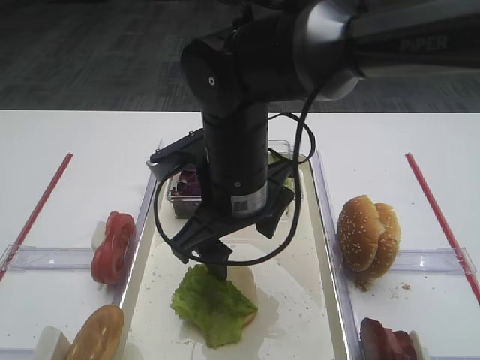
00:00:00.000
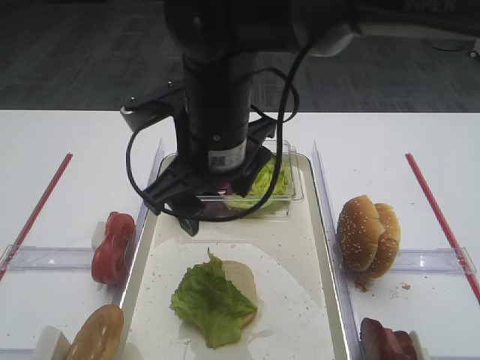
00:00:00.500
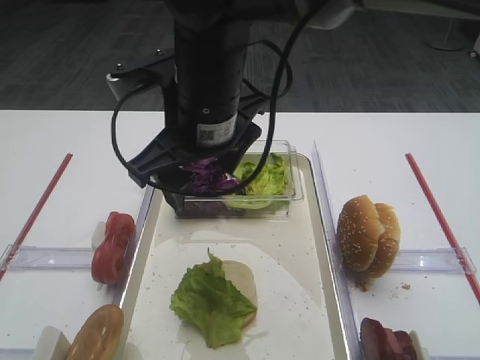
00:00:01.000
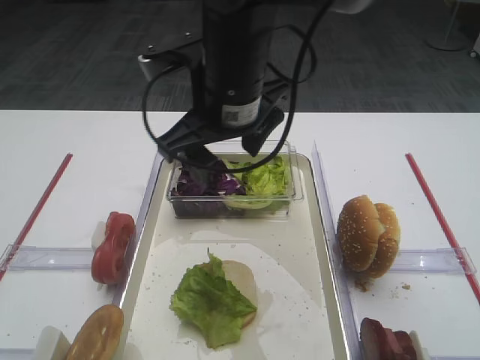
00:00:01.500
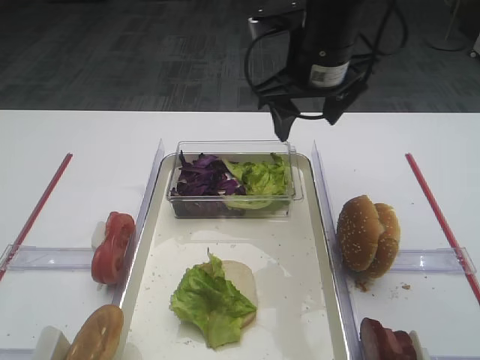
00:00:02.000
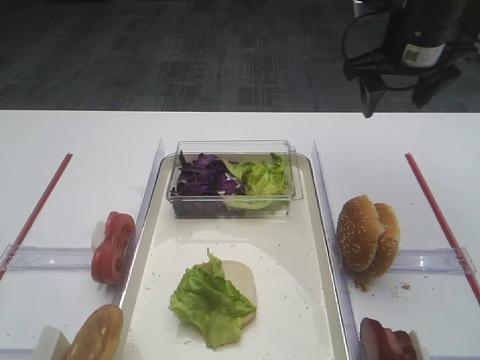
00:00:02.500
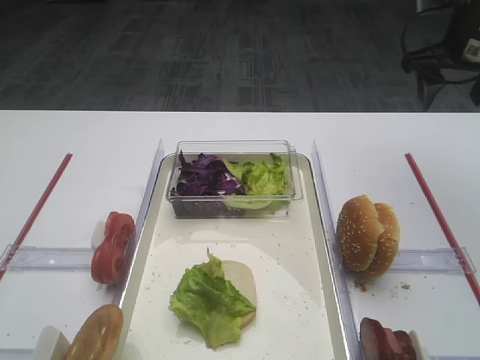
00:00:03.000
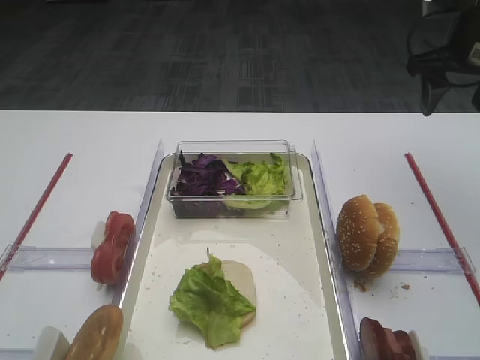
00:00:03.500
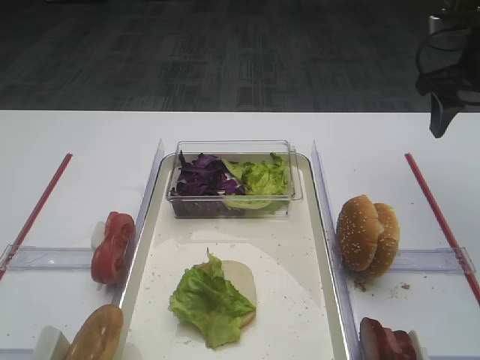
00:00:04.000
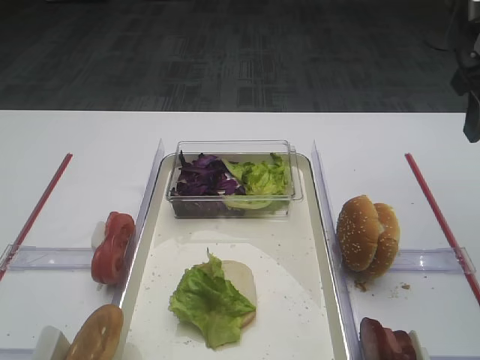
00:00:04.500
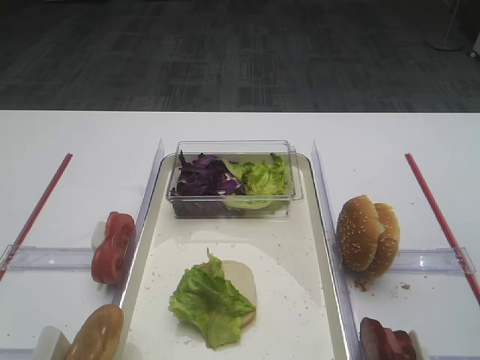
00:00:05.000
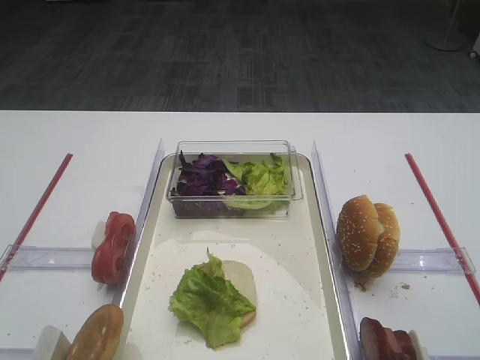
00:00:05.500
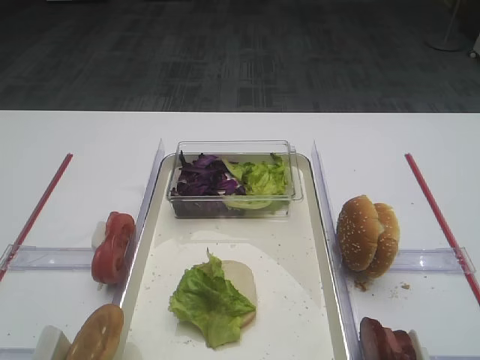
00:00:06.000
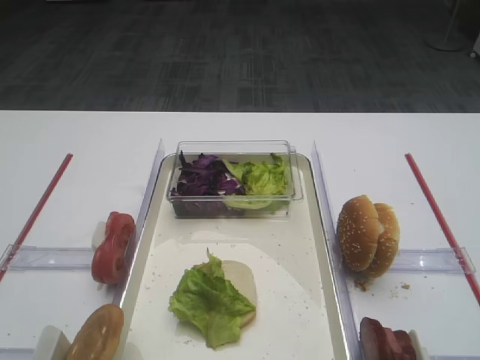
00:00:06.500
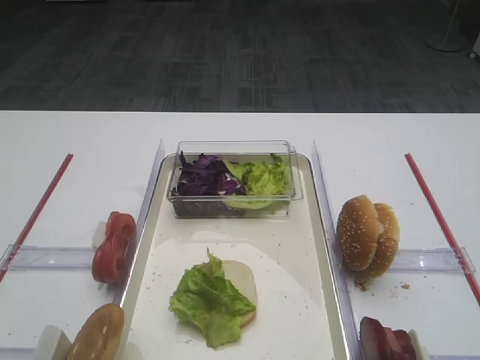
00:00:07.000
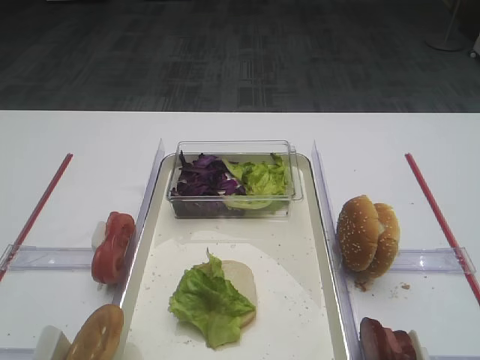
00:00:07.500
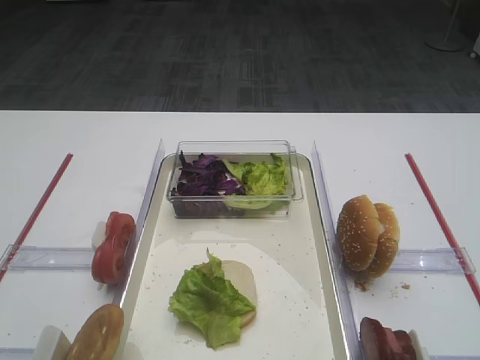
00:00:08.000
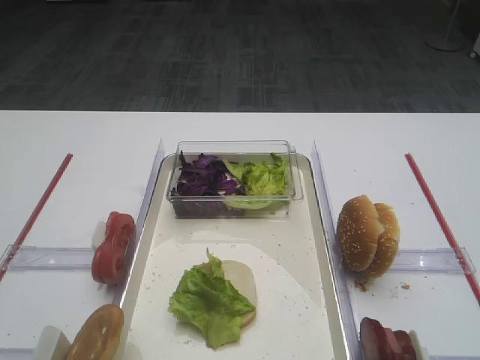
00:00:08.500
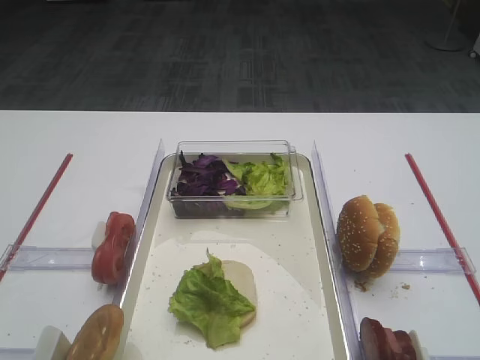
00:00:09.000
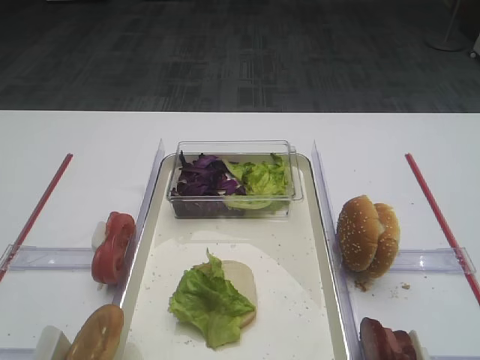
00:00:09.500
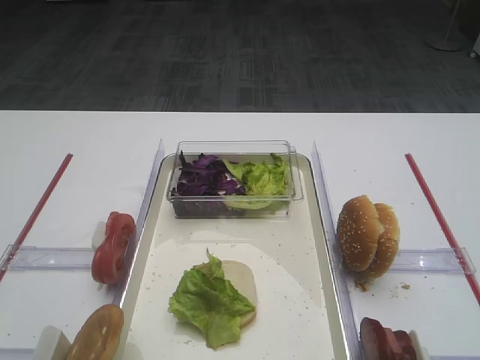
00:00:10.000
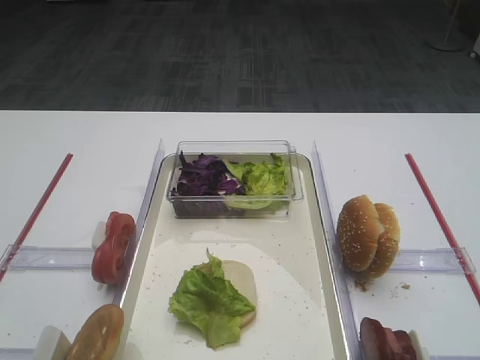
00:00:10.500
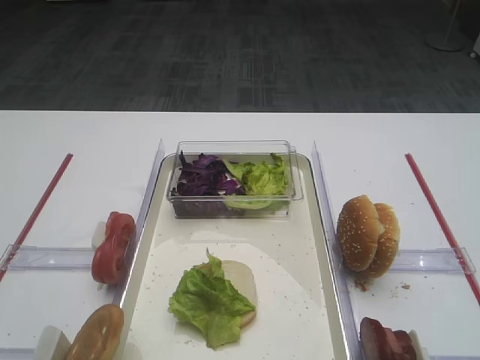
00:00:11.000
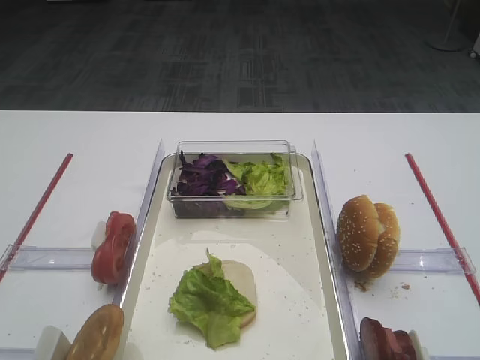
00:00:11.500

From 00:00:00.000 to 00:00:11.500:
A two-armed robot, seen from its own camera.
From 00:00:00.000 to 00:00:02.000: The right gripper moves forward, to the right and upward, roughly 15 cm.
From 00:00:02.000 to 00:00:04.000: The right gripper goes some 20 cm to the right.
From 00:00:04.000 to 00:00:06.000: The right gripper moves backward, roughly 35 cm.
From 00:00:07.500 to 00:00:11.500: Neither gripper changes place.

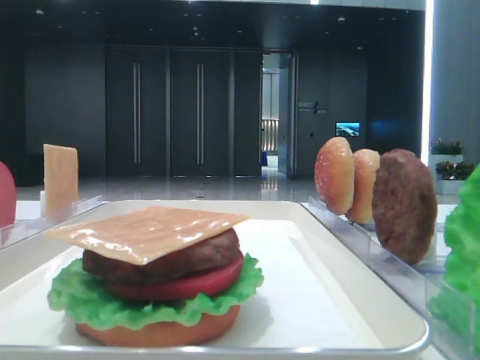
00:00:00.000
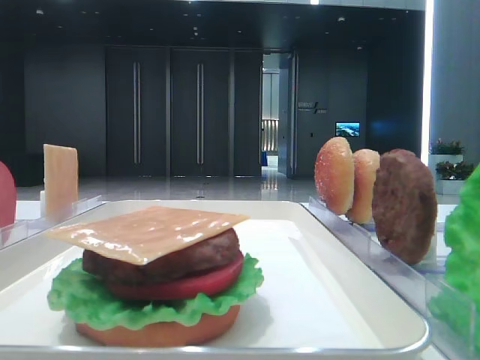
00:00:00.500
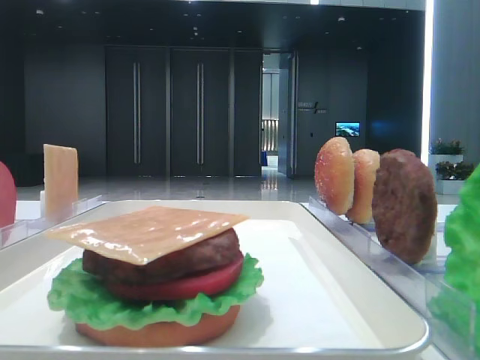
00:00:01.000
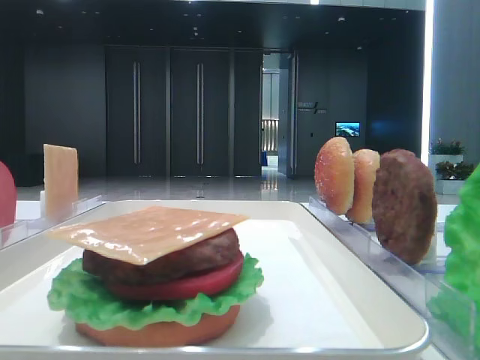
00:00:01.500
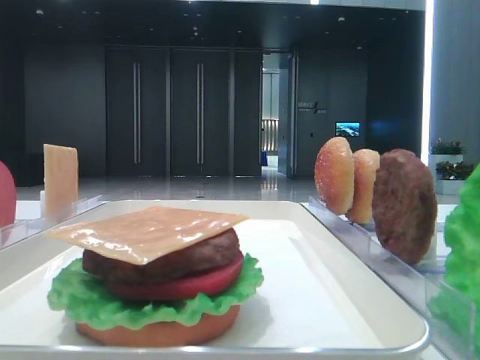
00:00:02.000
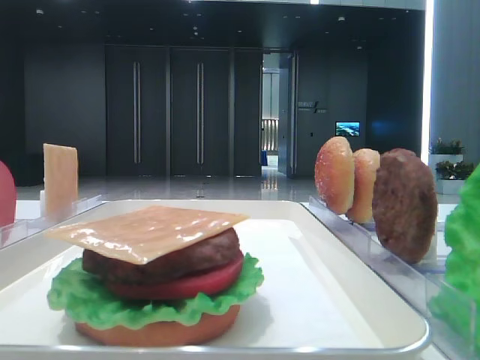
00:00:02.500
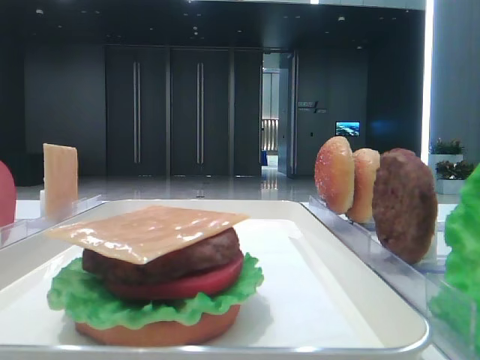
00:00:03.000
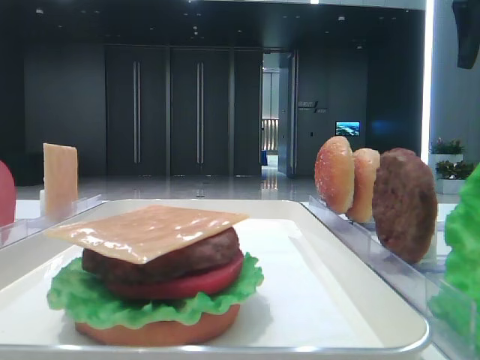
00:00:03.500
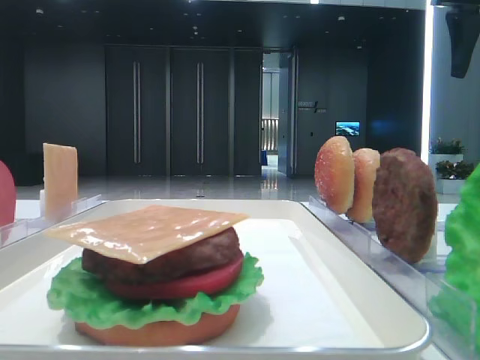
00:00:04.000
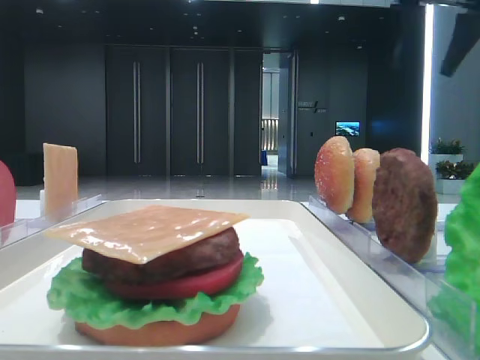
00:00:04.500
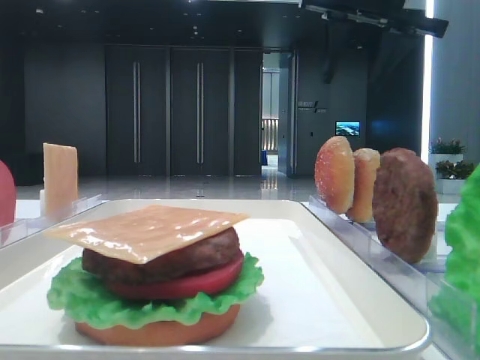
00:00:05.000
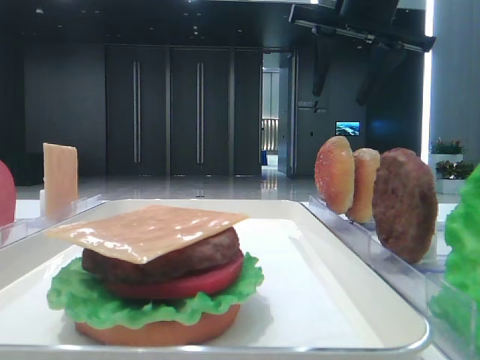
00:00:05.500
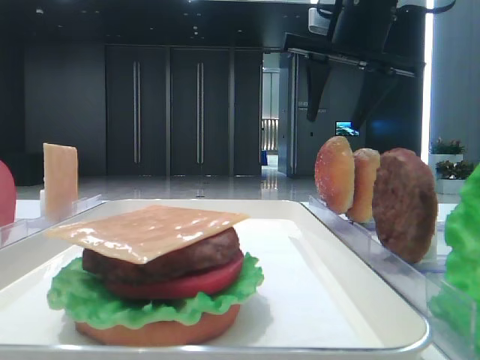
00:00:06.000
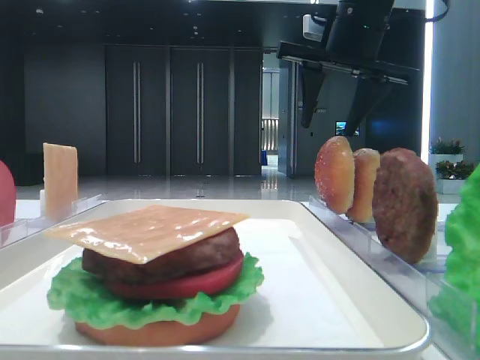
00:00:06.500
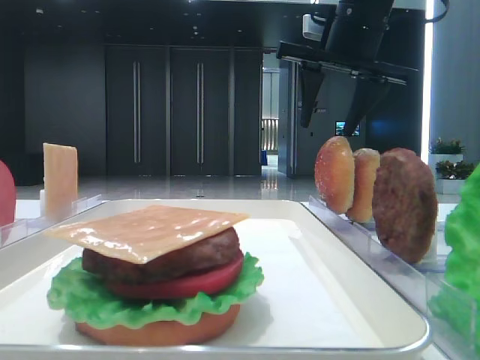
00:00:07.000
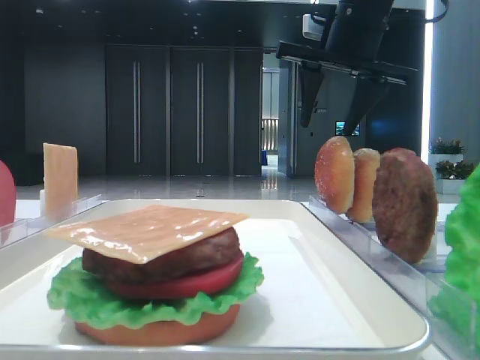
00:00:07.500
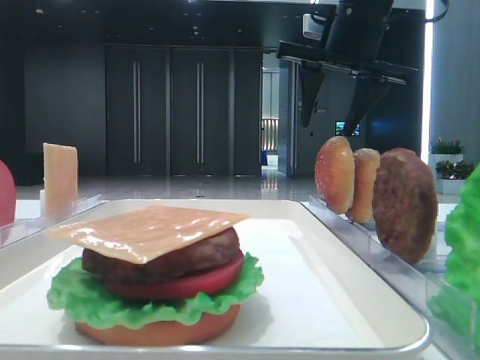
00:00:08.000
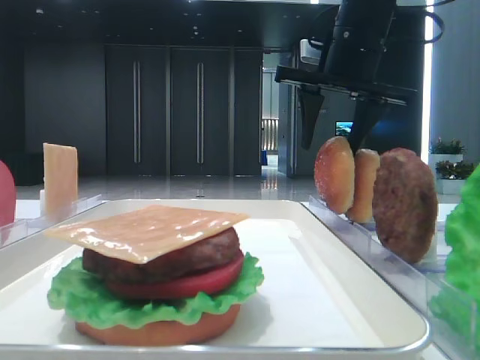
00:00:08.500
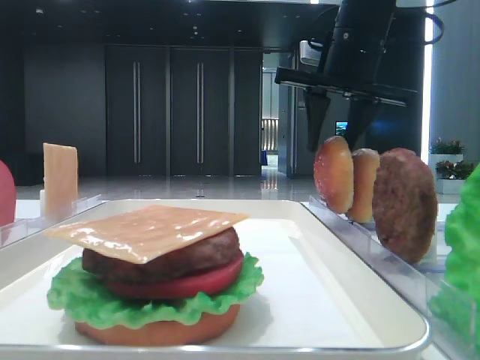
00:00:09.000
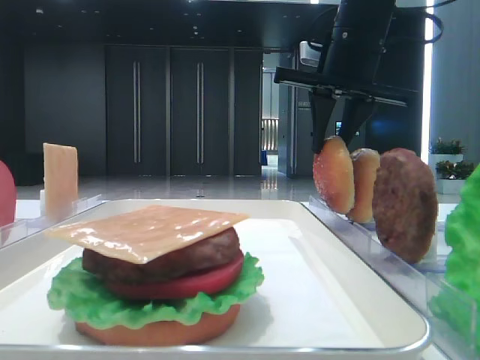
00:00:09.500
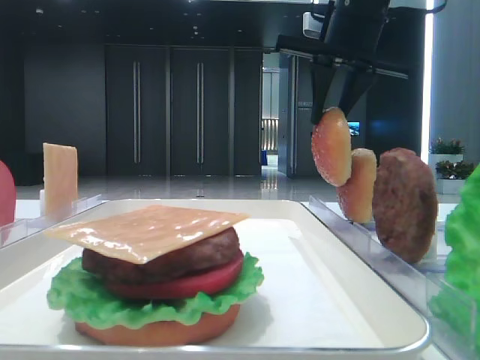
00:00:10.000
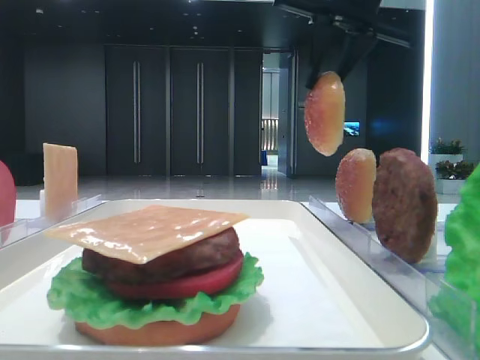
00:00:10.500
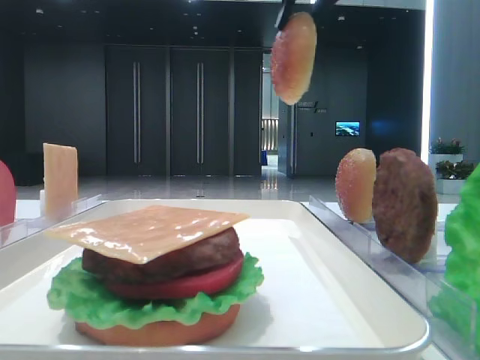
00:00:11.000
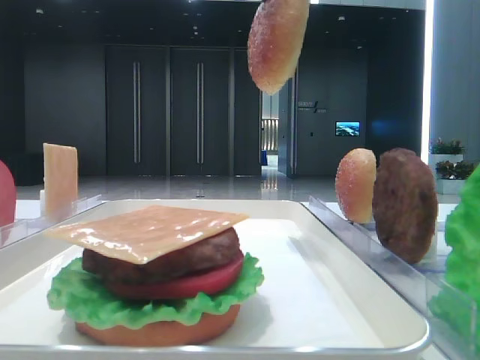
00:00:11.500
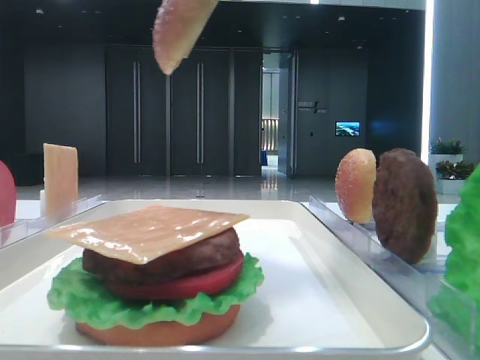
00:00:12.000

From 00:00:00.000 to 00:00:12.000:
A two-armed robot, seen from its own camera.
Step, from 00:00:00.000 to 00:00:09.000: Pick up the top bread slice with the right hand.
From 00:00:02.000 to 00:00:04.000: The right gripper travels forward by about 35 cm.
From 00:00:04.000 to 00:00:06.000: The right gripper travels to the left by roughly 15 cm.
From 00:00:06.000 to 00:00:08.000: Both grippers stay put.
From 00:00:08.000 to 00:00:10.000: The right gripper closes.
From 00:00:10.000 to 00:00:12.000: The right gripper moves backward, approximately 20 cm.

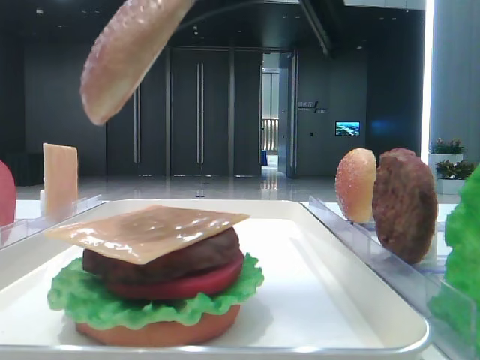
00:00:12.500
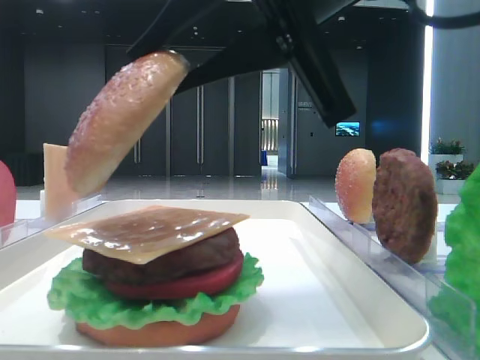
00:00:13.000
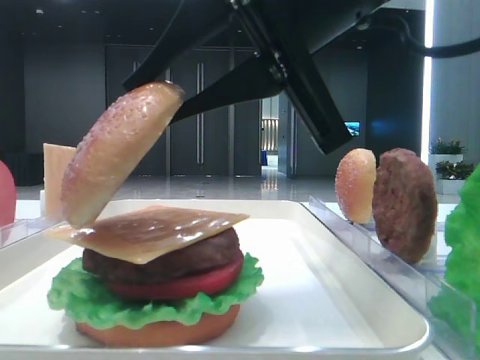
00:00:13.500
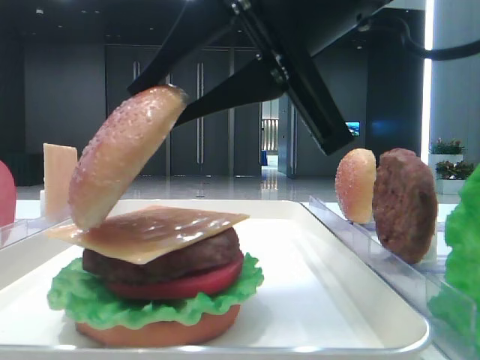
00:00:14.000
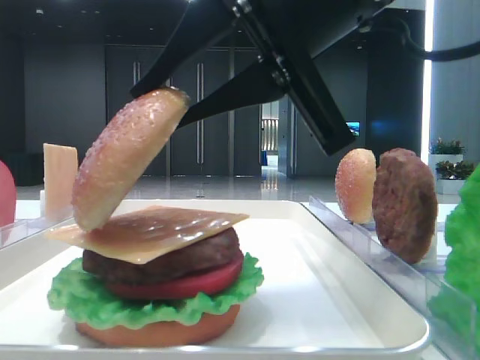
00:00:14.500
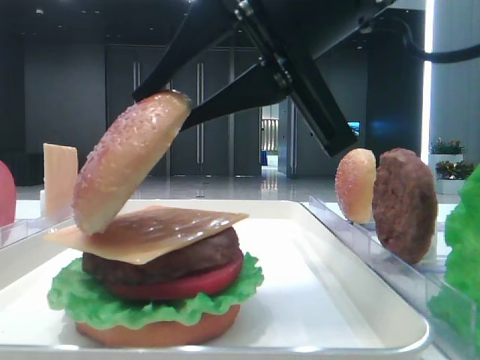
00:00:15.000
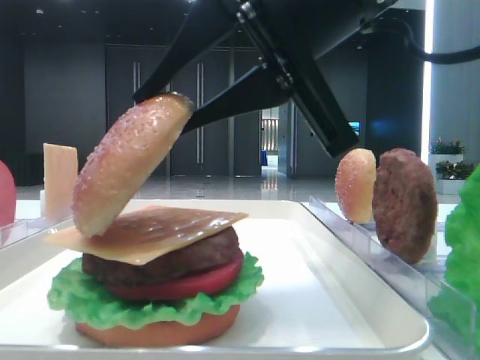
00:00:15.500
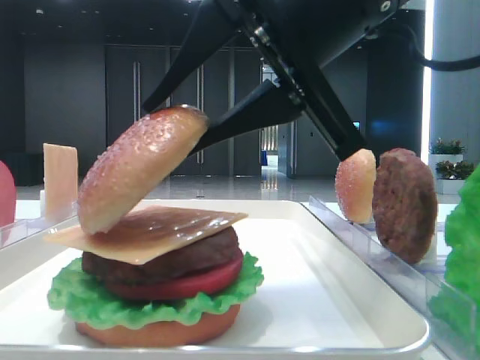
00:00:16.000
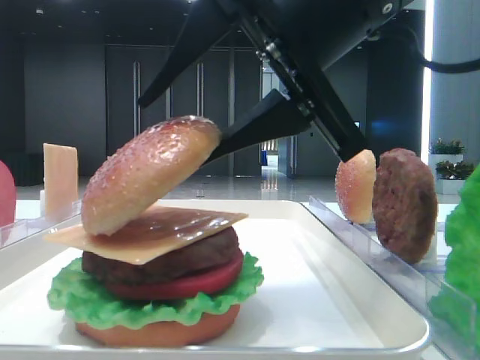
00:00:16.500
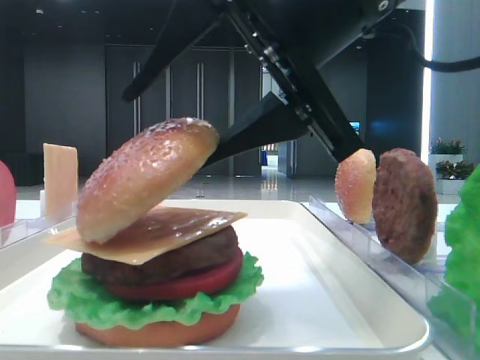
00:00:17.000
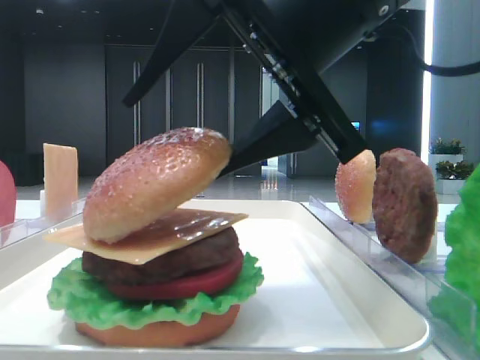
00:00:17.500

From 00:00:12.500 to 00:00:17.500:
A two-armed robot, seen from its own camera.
From 00:00:12.500 to 00:00:15.000: The right gripper shifts about 5 cm downward.
From 00:00:15.000 to 00:00:17.500: The right gripper opens its fingers.
